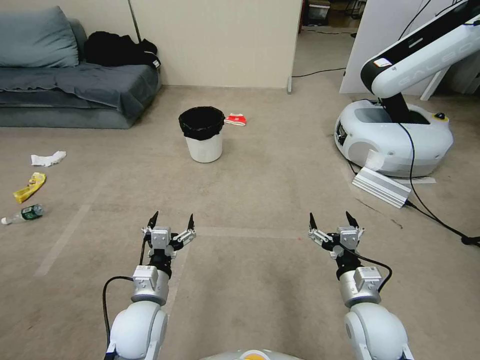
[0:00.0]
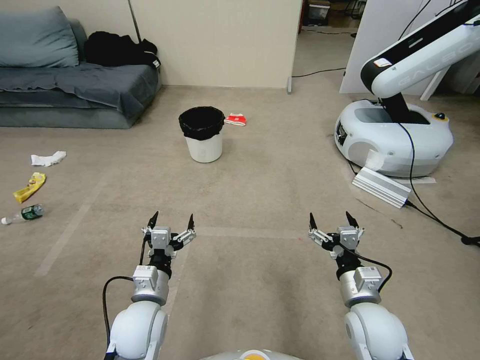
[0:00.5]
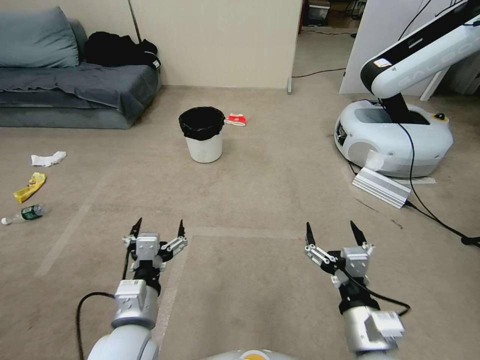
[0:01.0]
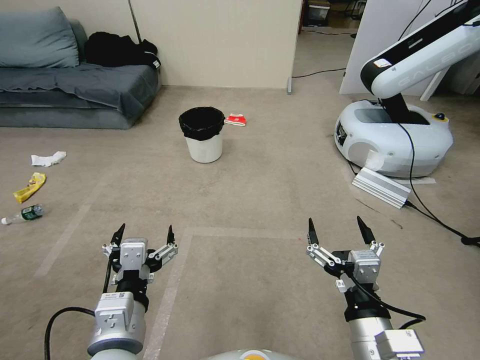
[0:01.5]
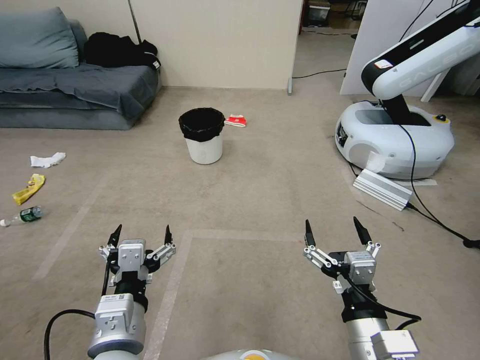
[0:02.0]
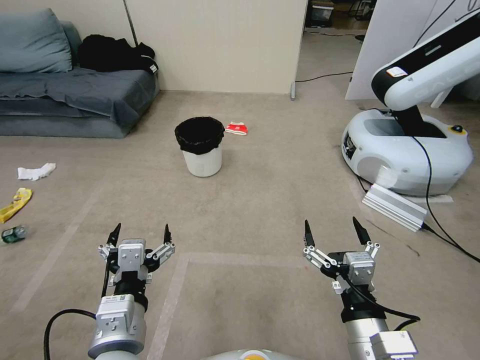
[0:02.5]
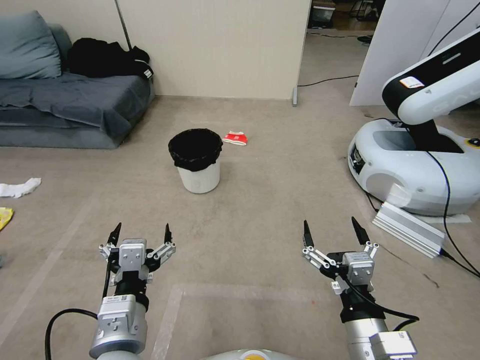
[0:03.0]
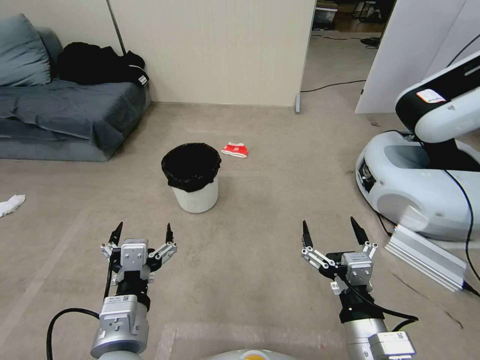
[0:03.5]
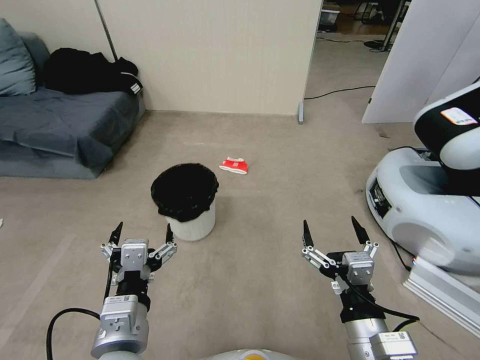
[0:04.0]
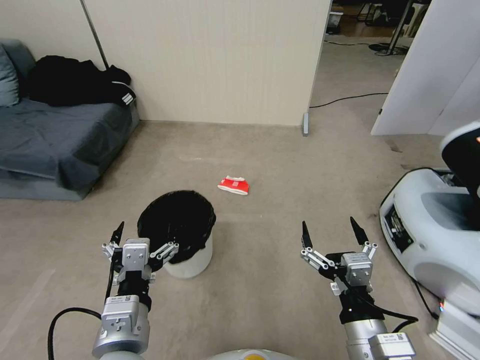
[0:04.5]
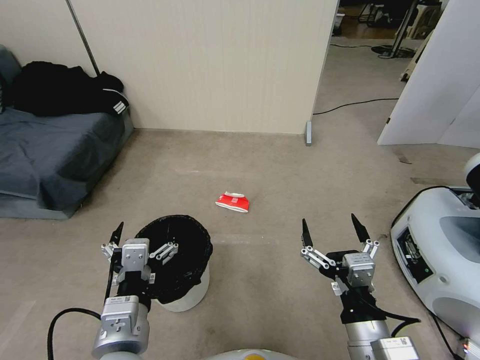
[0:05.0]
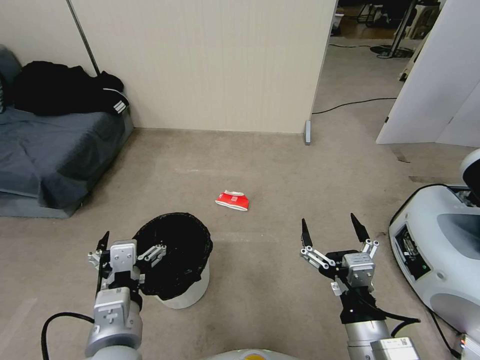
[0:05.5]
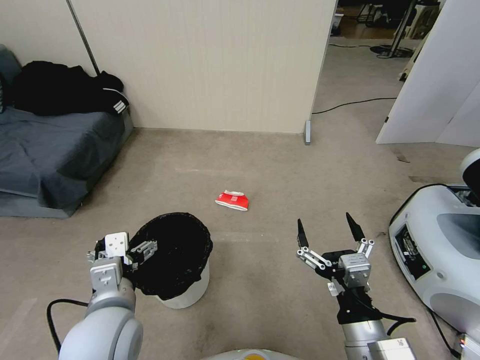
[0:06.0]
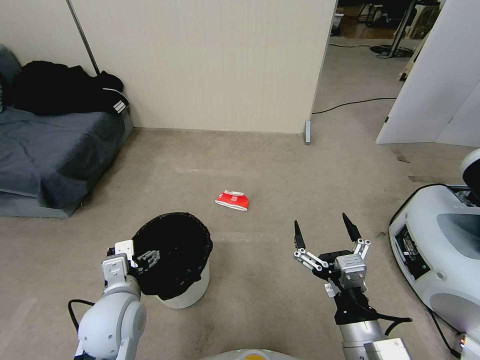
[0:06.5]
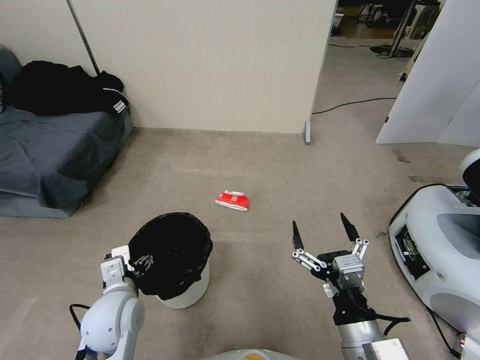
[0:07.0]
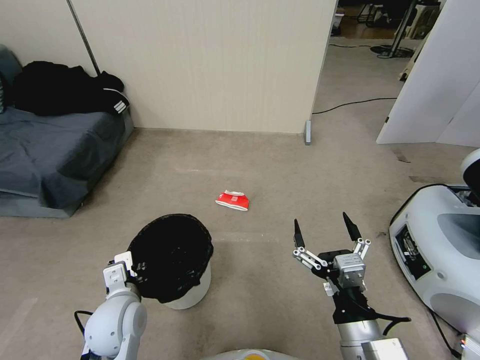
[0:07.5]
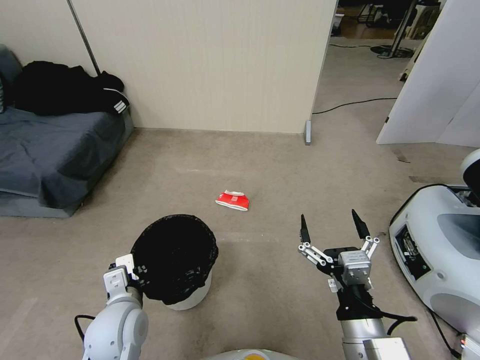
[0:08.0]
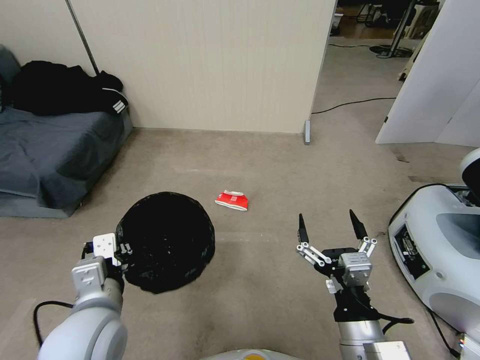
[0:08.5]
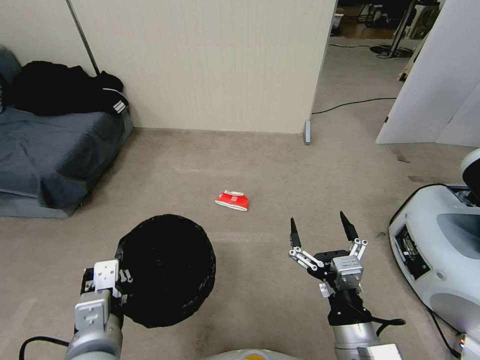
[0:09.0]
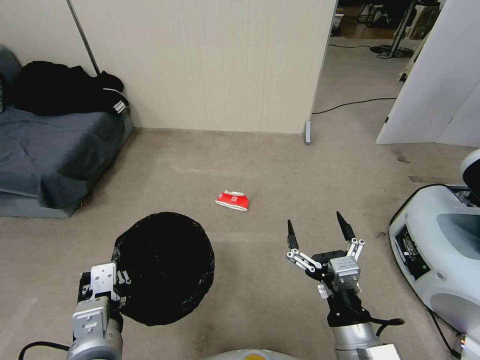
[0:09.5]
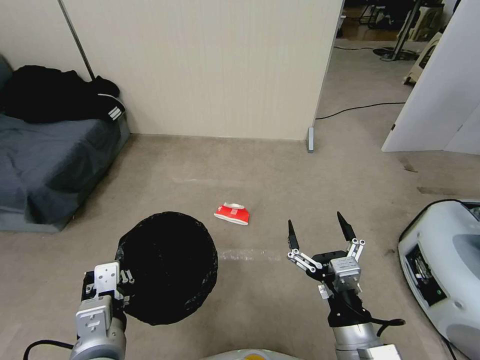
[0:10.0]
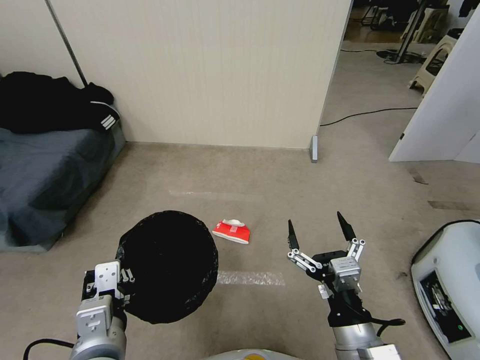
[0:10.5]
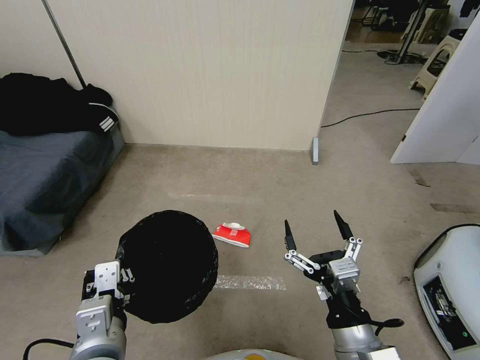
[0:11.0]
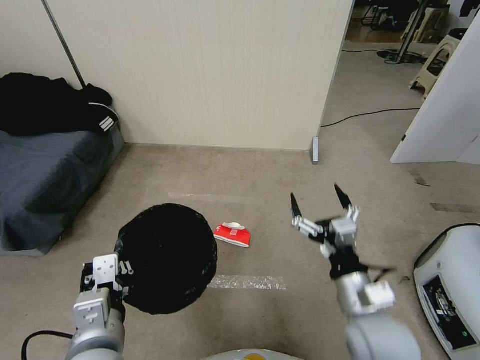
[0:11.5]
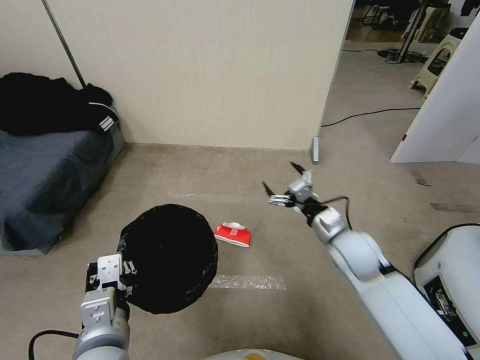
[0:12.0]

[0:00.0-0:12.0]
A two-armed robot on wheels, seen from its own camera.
Task of the whole recording: Pick up the trash bin, then pick up the garbage from the floor and place it into the trash bin.
0:04.0 to 0:06.0: The left gripper travels forward by approximately 5 cm.
0:06.0 to 0:08.0: The left gripper shifts roughly 10 cm downward, and closes up.
0:08.0 to 0:10.0: The left gripper travels upward and backward by roughly 15 cm.
0:10.0 to 0:12.0: The right gripper is displaced forward by about 25 cm.

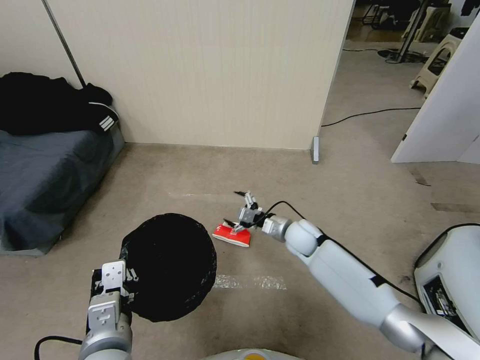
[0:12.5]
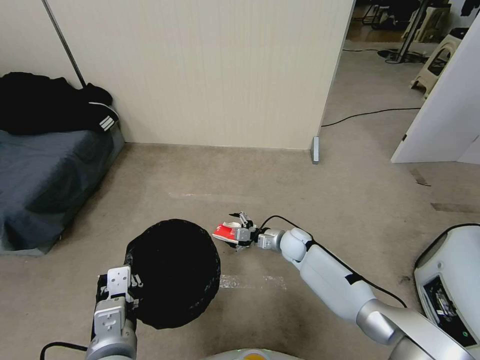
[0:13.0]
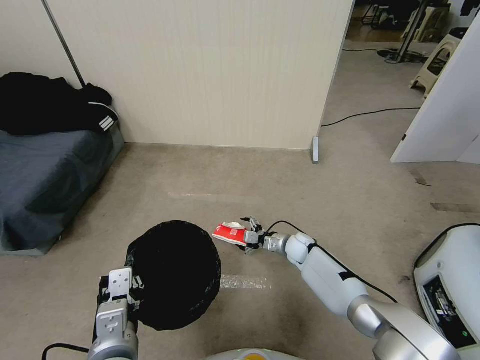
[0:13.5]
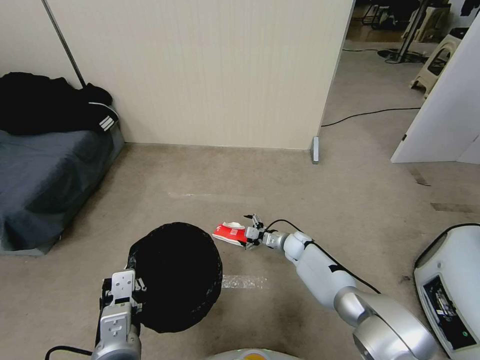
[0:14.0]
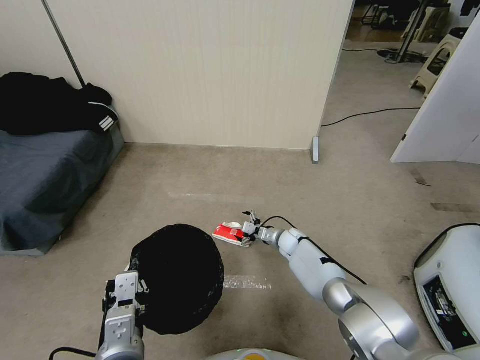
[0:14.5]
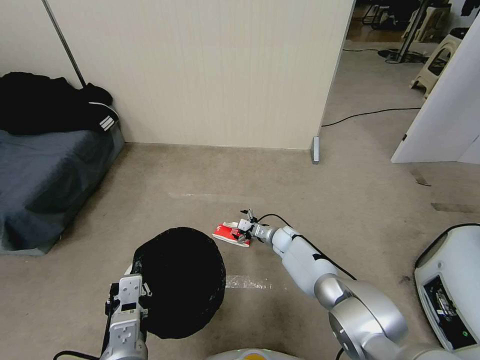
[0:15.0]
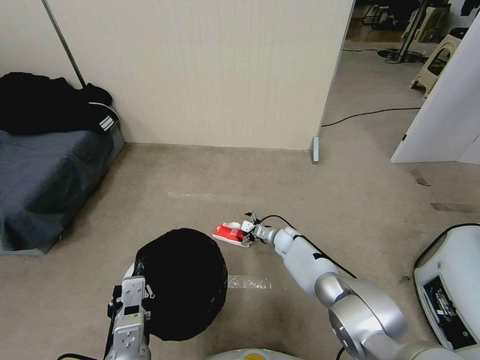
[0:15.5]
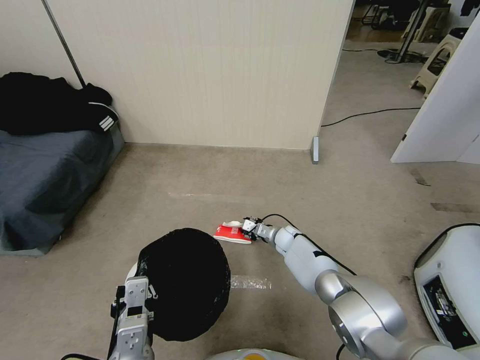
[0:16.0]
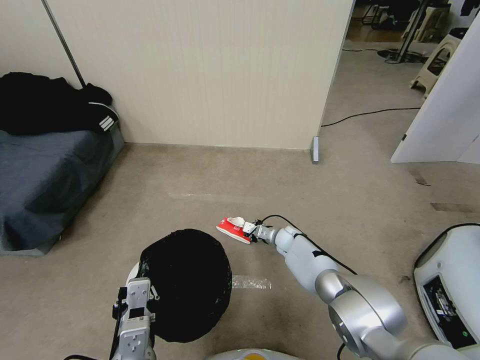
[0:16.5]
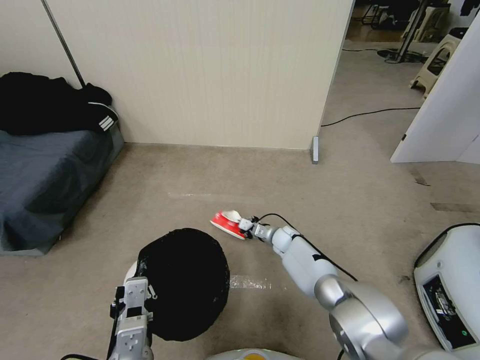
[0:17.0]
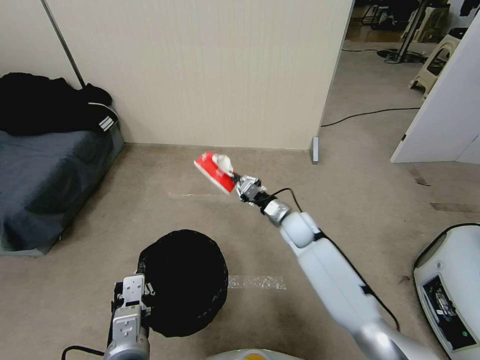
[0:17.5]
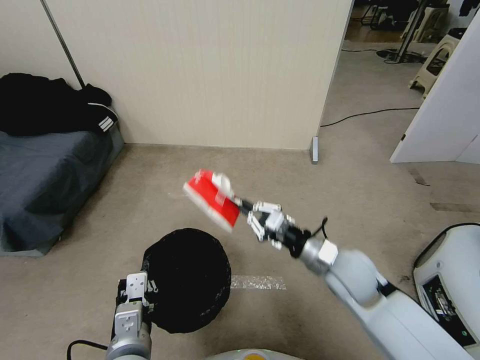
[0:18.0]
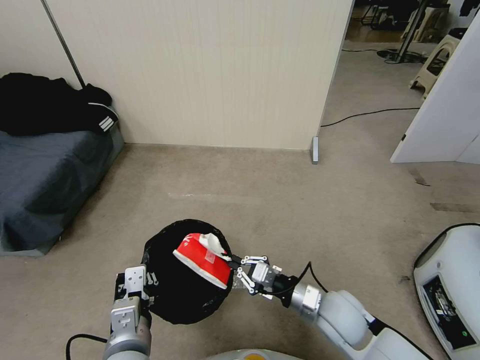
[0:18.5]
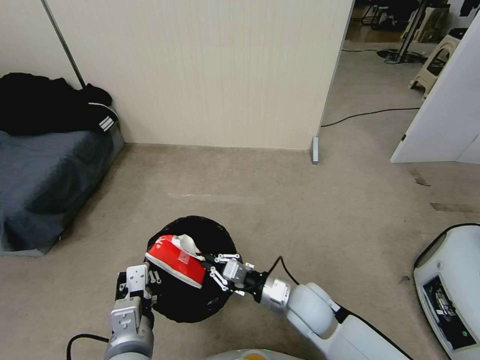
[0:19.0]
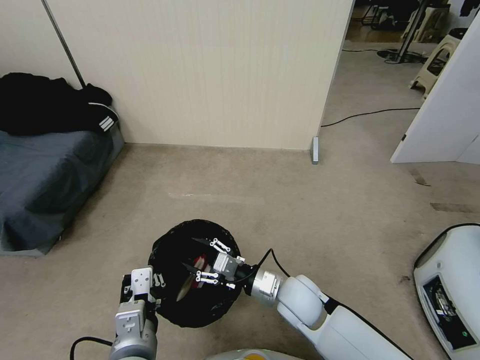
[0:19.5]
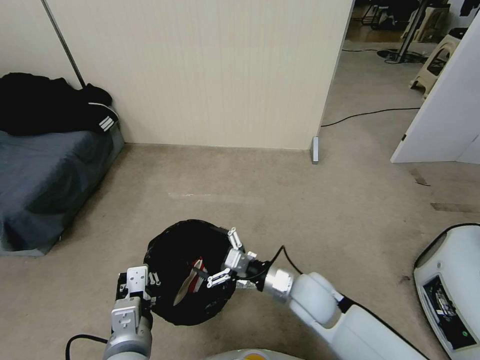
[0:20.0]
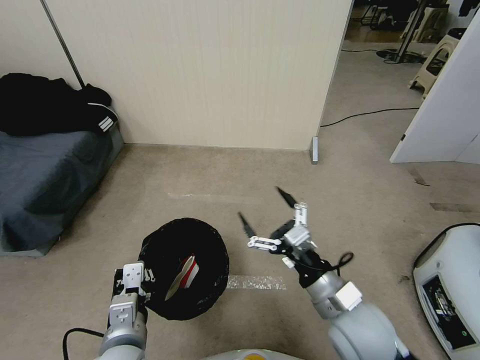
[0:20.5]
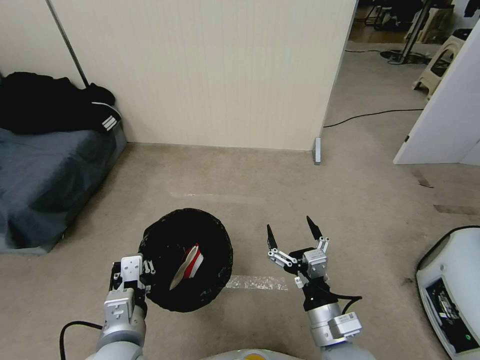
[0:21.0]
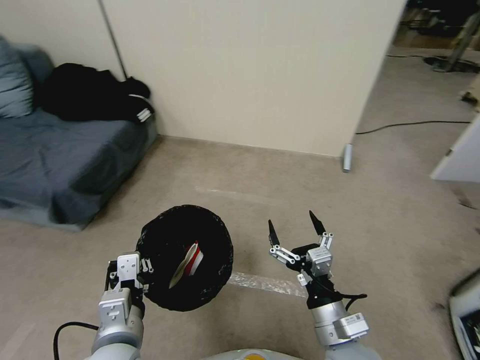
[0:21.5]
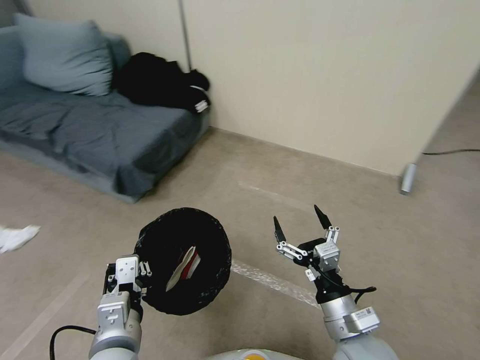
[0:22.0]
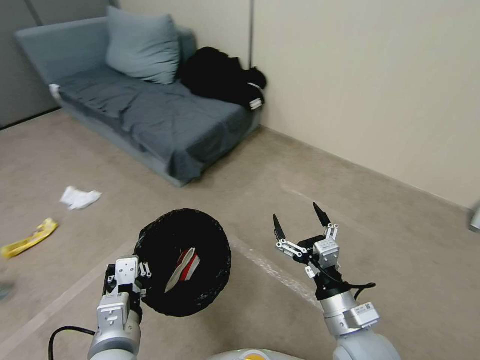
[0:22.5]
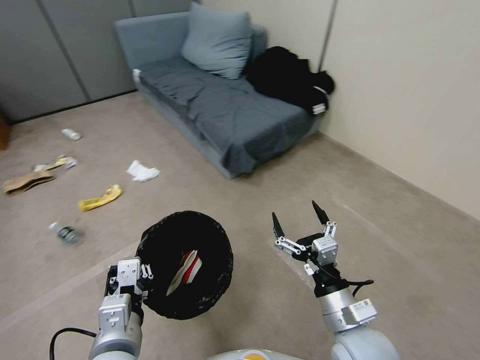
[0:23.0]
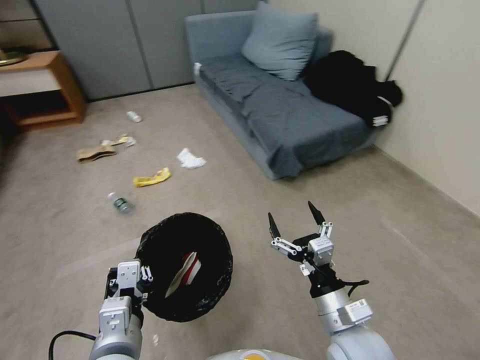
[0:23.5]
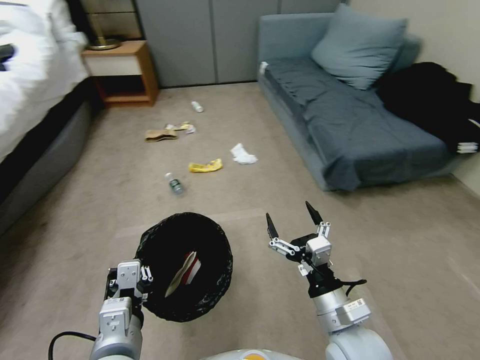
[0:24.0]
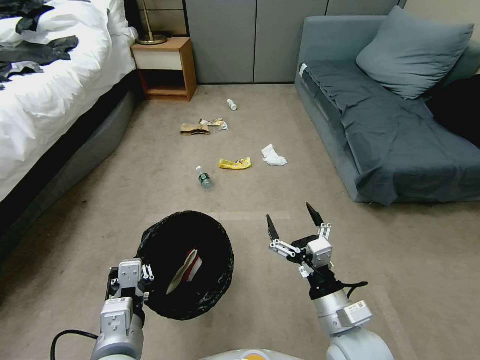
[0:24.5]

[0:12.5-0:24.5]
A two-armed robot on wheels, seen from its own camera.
Task of the whole recording: Pick up the trash bin, then pick up the garbage from the floor and place it into the trash bin.
0:12.5 to 0:14.5: The right gripper shifts roughly 15 cm downward.
0:14.5 to 0:16.5: The right gripper closes its fingers.
0:16.5 to 0:18.5: The right gripper shifts some 30 cm backward and upward.
0:18.5 to 0:20.5: The right gripper is displaced upward by roughly 10 cm, and opens its fingers.

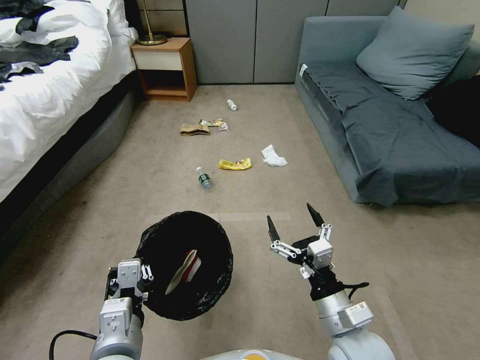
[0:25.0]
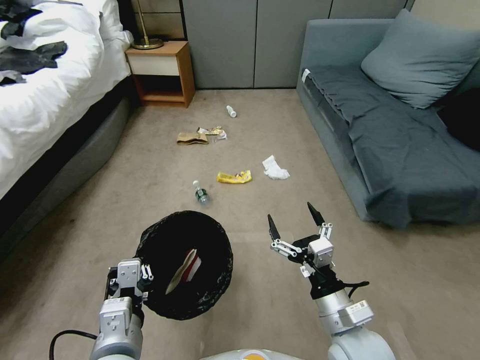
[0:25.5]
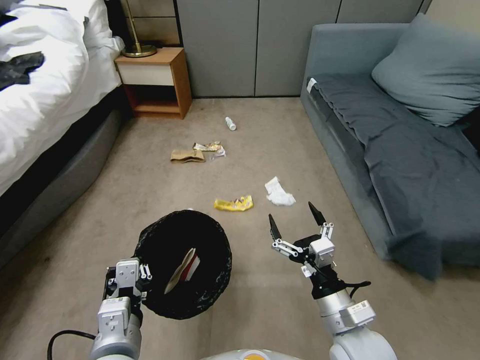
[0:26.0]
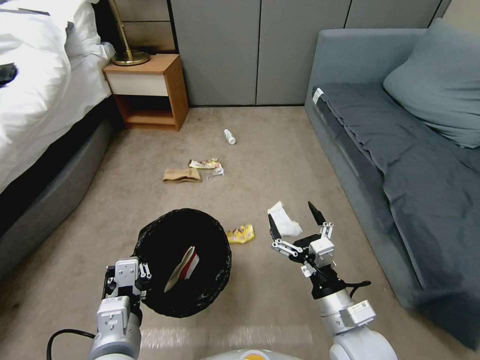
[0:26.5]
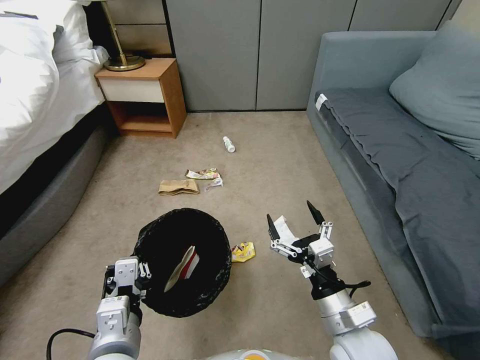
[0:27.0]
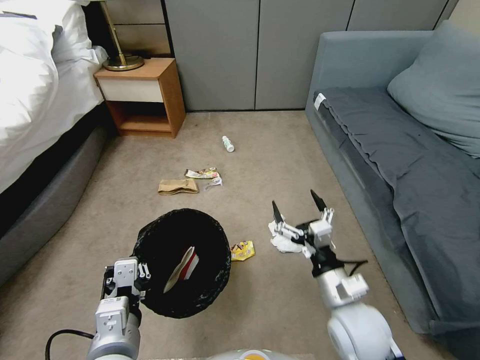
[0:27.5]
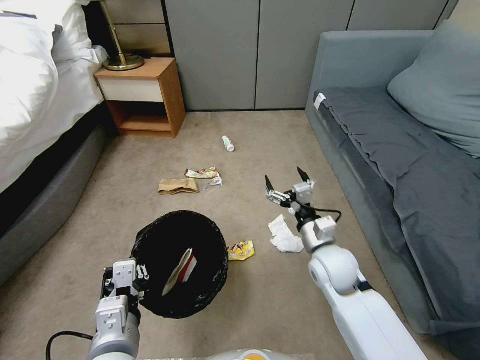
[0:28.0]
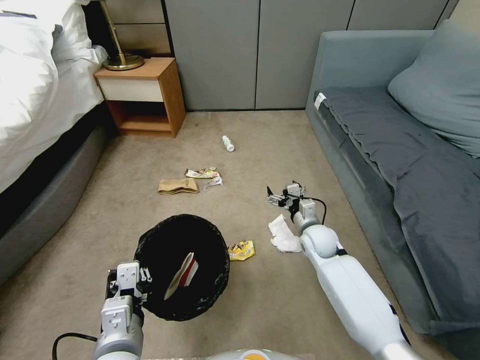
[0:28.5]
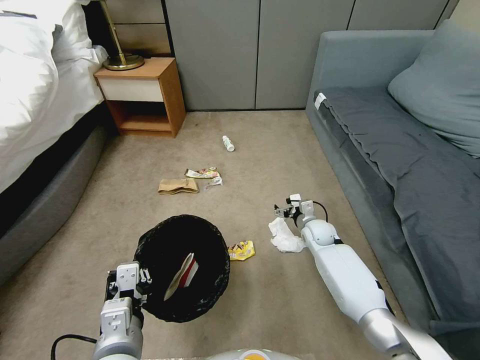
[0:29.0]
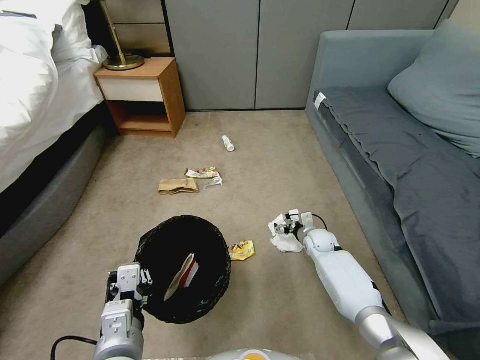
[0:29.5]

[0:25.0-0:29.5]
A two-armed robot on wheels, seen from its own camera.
Task of the whole recording: Pick up the trash bin, then pick up the garbage from the floor and place it into the trash bin.
0:27.0 to 0:29.5: The right gripper is displaced forward and downward by roughly 35 cm.
